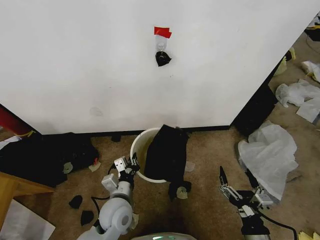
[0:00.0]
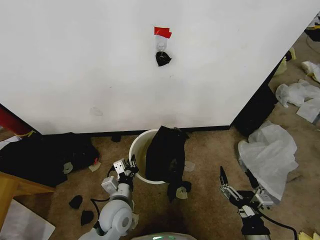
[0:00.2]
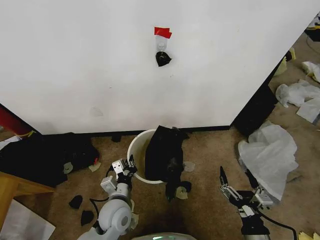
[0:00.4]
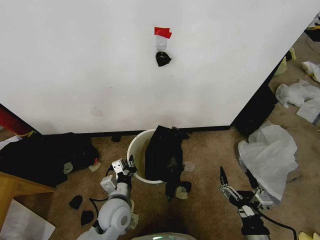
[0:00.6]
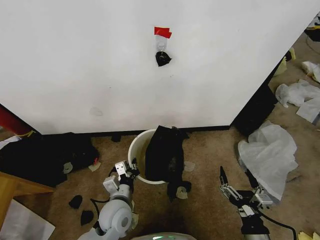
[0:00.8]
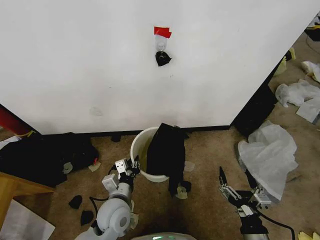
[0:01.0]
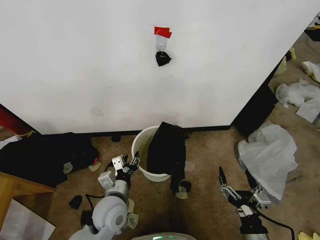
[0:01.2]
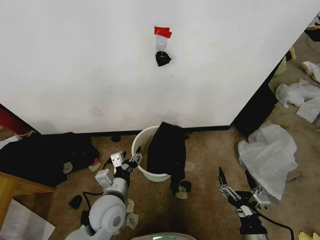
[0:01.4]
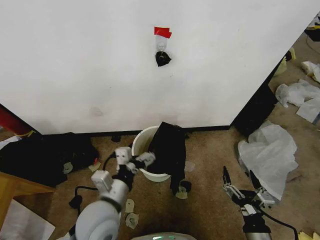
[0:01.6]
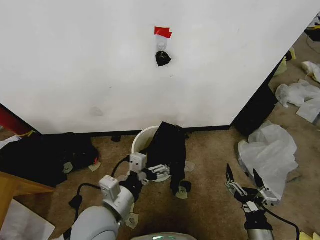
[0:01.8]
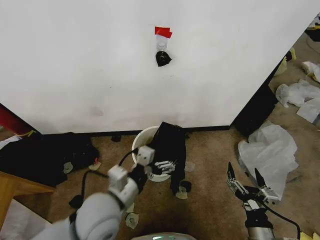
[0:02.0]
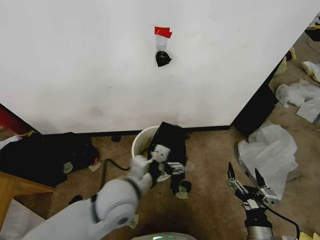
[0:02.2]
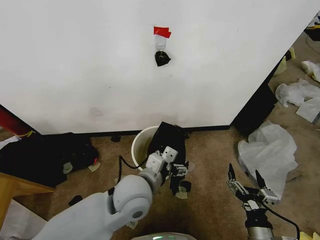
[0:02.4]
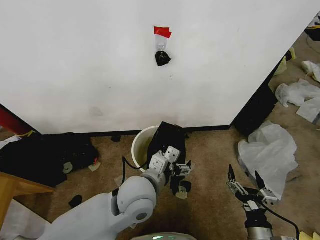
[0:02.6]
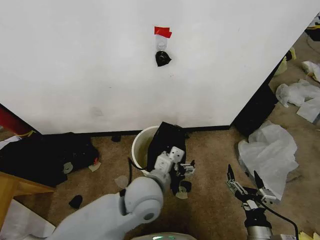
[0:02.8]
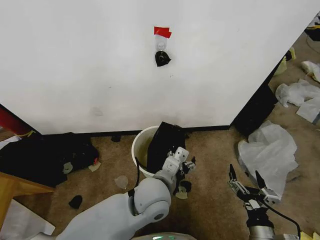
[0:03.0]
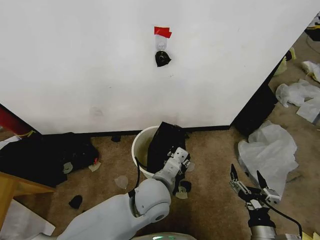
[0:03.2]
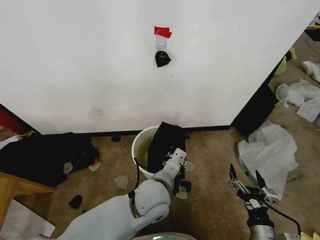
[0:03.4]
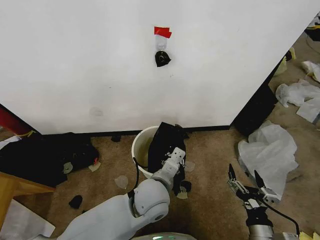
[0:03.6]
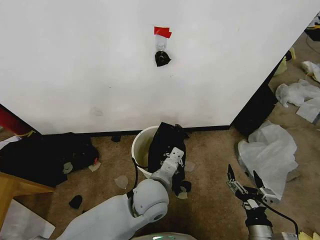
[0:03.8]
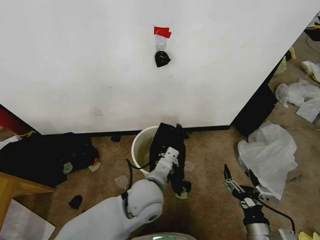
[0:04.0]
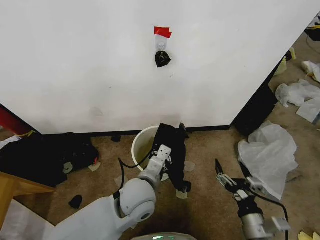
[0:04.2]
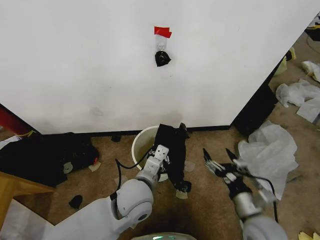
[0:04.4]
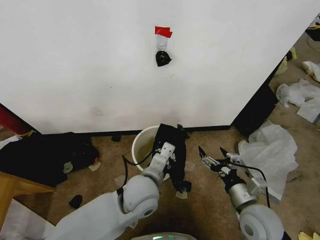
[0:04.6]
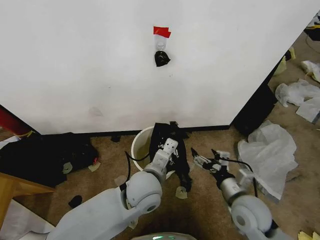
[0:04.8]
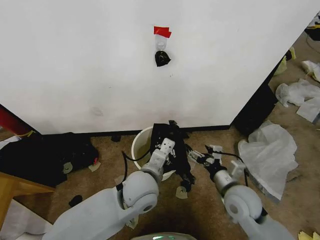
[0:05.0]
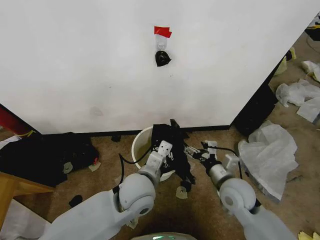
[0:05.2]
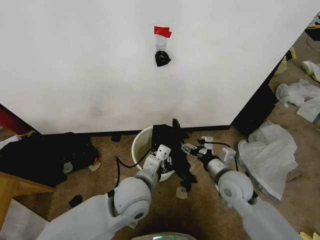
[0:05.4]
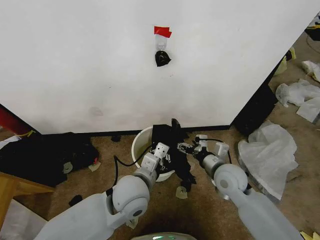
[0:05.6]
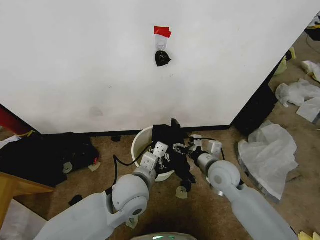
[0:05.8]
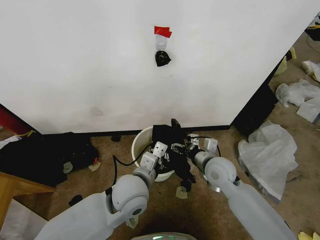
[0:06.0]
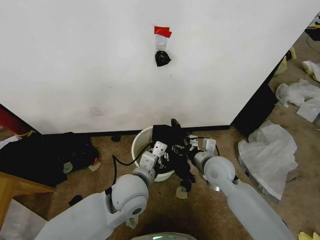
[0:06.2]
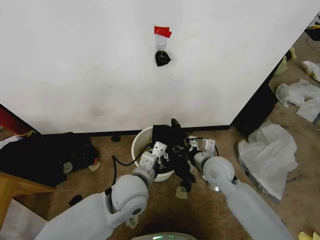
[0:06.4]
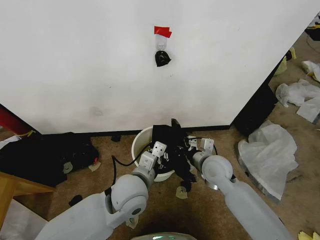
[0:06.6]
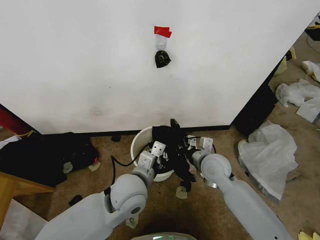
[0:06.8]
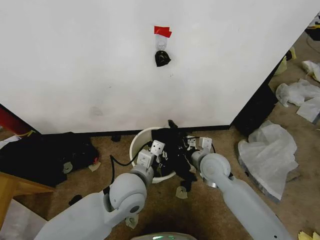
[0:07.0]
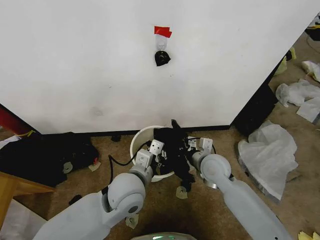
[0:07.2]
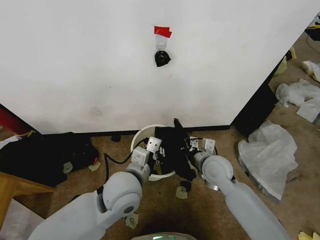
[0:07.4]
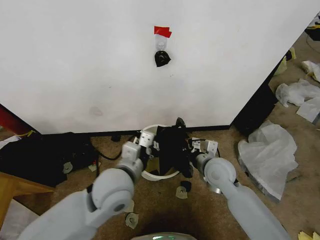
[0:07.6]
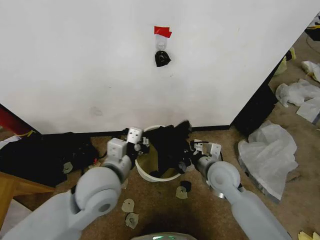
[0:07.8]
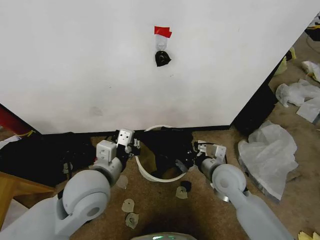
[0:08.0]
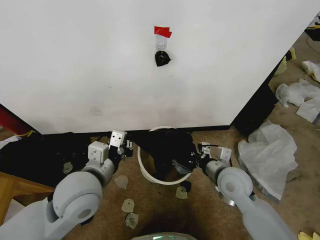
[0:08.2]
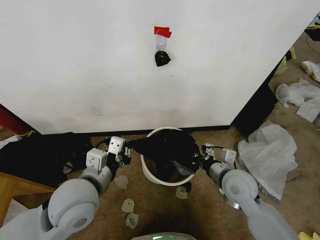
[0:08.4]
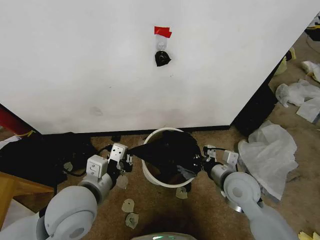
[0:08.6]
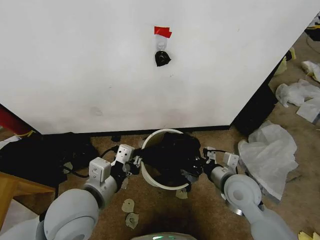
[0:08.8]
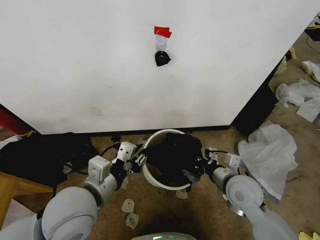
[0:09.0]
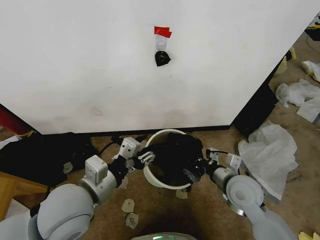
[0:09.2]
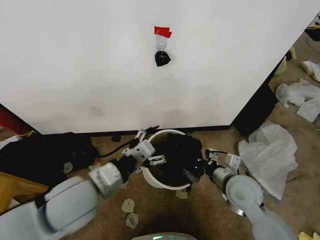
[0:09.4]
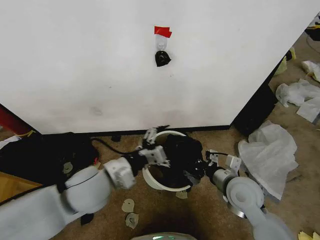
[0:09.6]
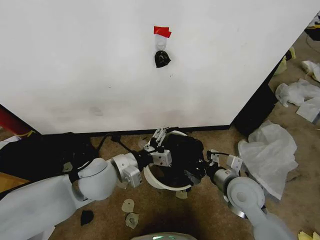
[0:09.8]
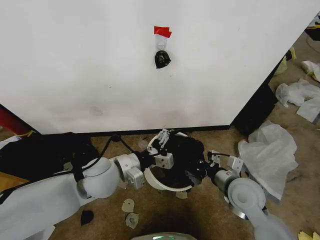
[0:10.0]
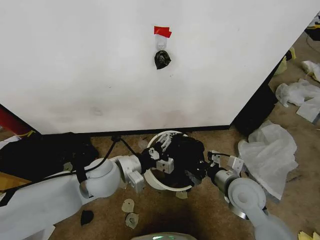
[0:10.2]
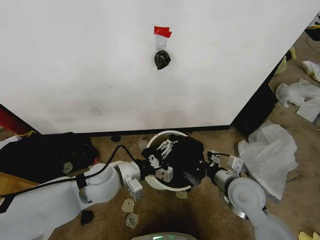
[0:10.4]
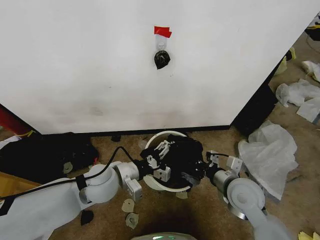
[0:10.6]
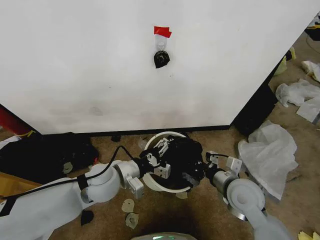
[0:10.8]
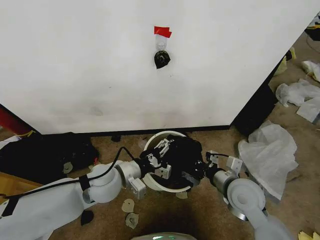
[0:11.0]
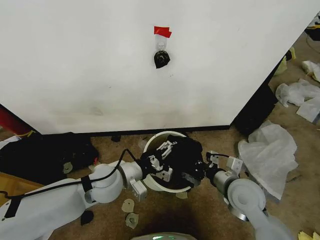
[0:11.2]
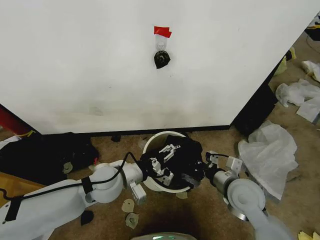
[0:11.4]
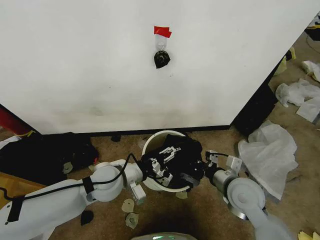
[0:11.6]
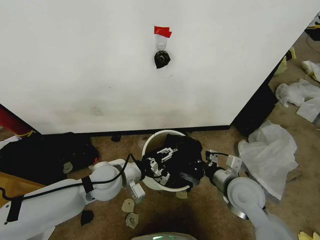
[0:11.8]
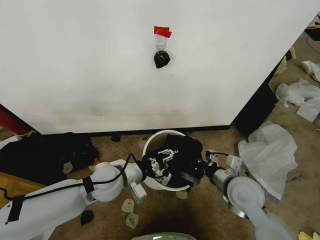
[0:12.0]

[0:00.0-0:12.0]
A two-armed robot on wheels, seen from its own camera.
Task of the whole recording: Place the garbage bag over the trash bin.
0:00.0 to 0:01.6: The left gripper is displaced upward by approximately 10 cm, and opens its fingers.
0:01.6 to 0:03.0: The left gripper travels to the right by some 10 cm.
0:03.0 to 0:04.4: The left gripper closes up. Meanwhile the right gripper moves forward, approximately 5 cm.
0:04.4 to 0:06.0: The right gripper heads forward and to the left, covering approximately 20 cm.
0:06.0 to 0:07.6: The right gripper closes up. The left gripper ends up about 5 cm from where it was.
0:07.6 to 0:09.0: The left gripper is displaced to the left and backward by roughly 10 cm, and opens. Meanwhile the right gripper heads backward and to the right, covering some 10 cm.
0:09.0 to 0:10.4: The left gripper is displaced forward and downward by about 10 cm, and opens.
0:10.4 to 0:12.0: The left gripper closes.

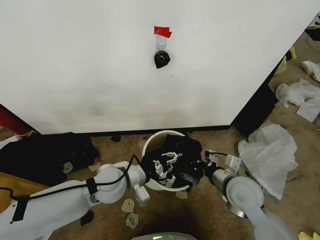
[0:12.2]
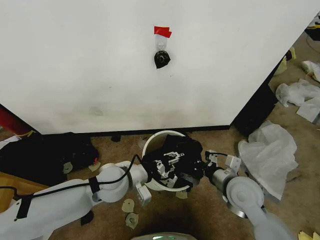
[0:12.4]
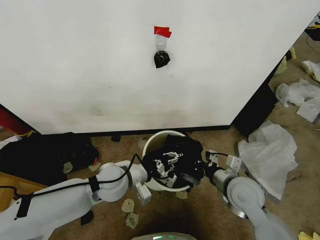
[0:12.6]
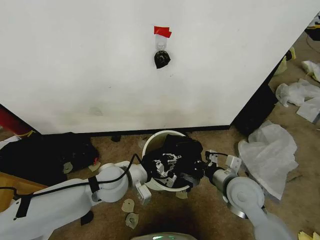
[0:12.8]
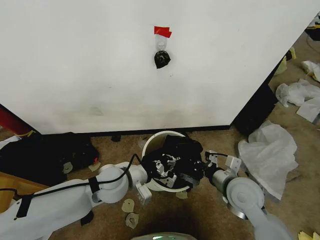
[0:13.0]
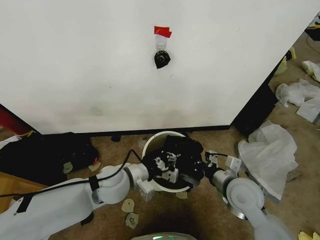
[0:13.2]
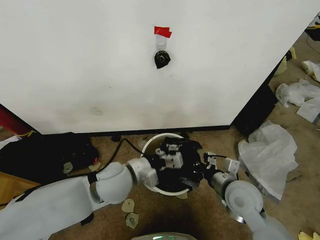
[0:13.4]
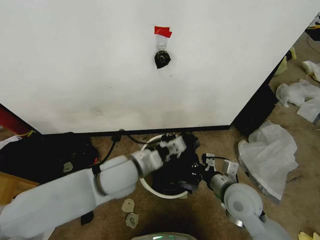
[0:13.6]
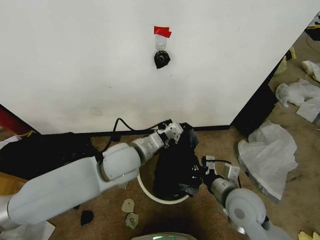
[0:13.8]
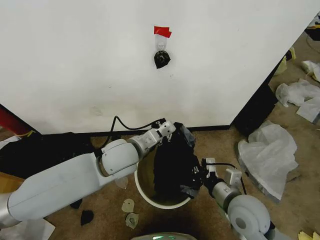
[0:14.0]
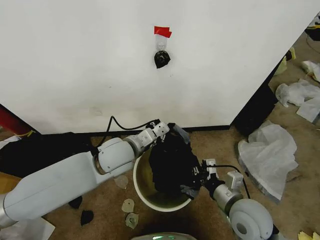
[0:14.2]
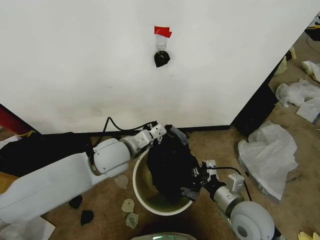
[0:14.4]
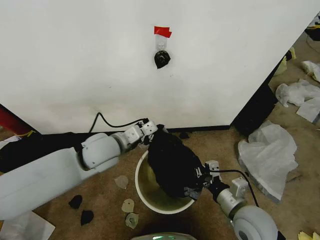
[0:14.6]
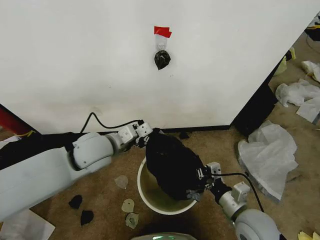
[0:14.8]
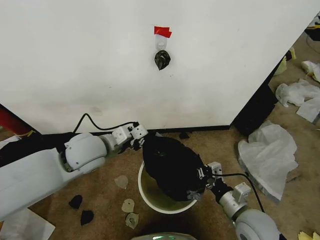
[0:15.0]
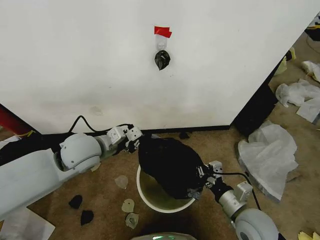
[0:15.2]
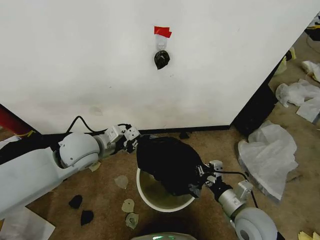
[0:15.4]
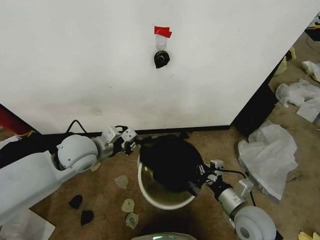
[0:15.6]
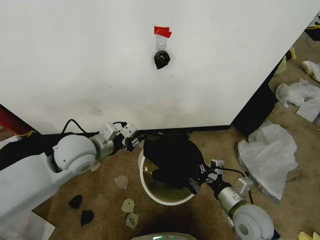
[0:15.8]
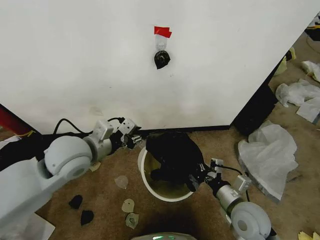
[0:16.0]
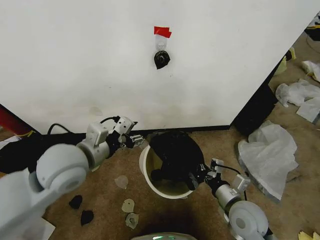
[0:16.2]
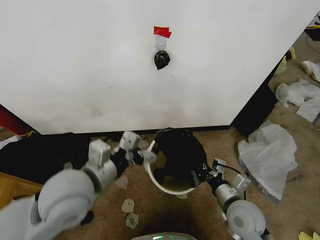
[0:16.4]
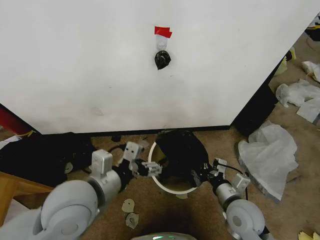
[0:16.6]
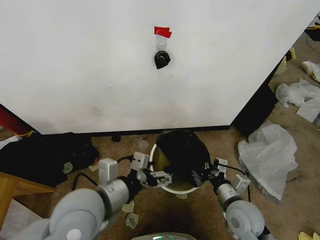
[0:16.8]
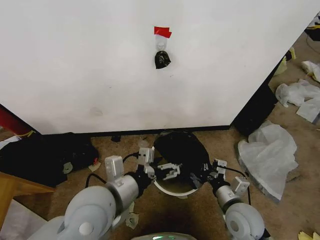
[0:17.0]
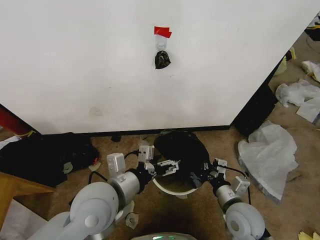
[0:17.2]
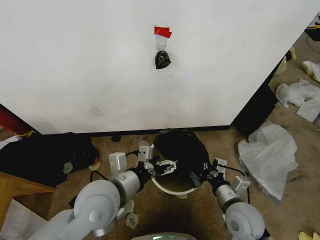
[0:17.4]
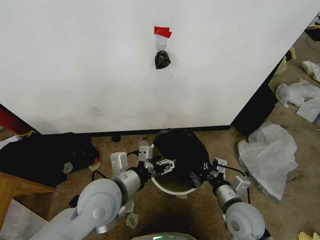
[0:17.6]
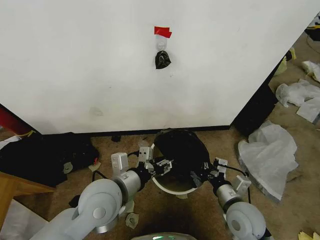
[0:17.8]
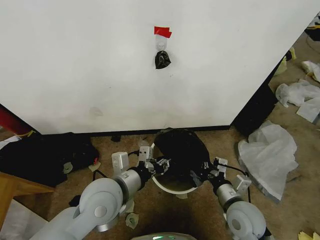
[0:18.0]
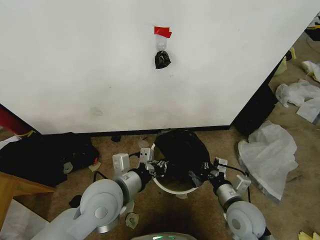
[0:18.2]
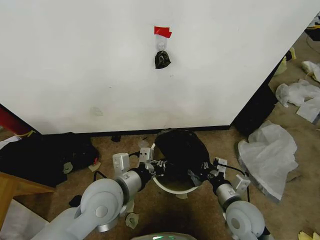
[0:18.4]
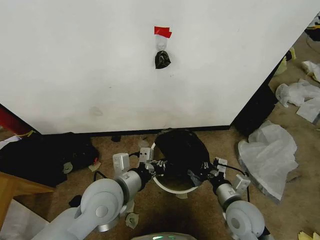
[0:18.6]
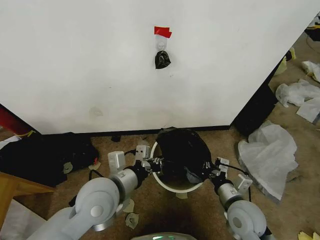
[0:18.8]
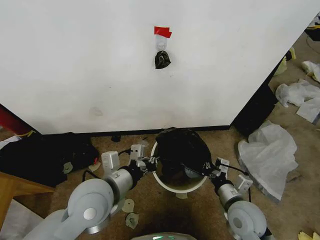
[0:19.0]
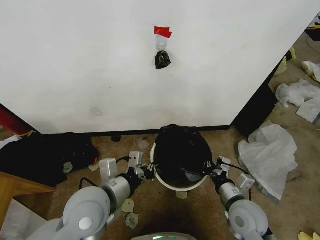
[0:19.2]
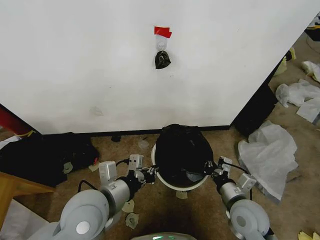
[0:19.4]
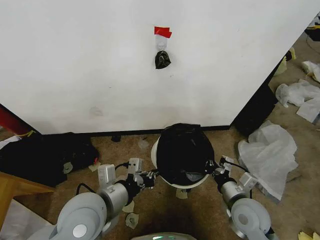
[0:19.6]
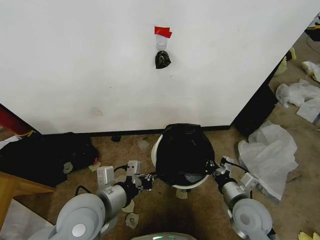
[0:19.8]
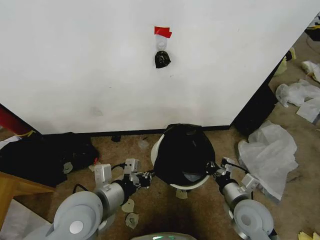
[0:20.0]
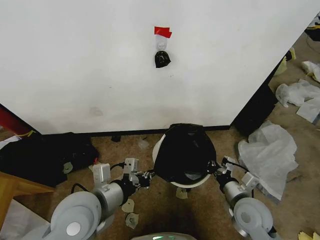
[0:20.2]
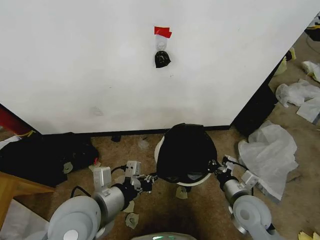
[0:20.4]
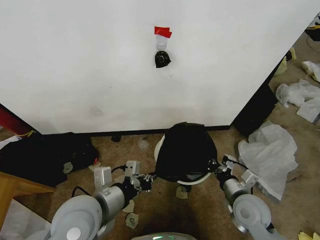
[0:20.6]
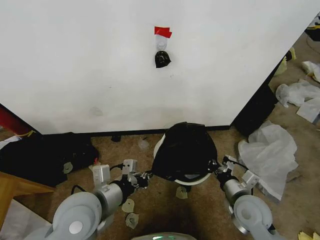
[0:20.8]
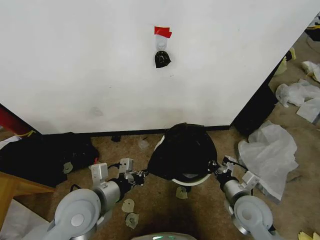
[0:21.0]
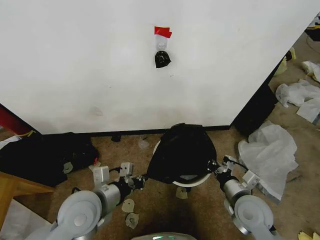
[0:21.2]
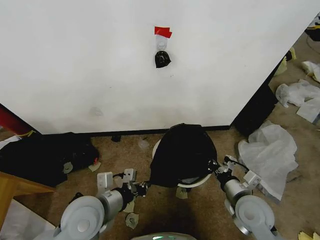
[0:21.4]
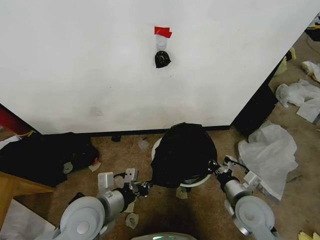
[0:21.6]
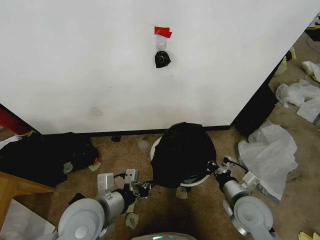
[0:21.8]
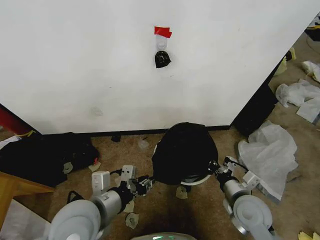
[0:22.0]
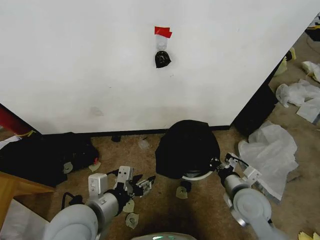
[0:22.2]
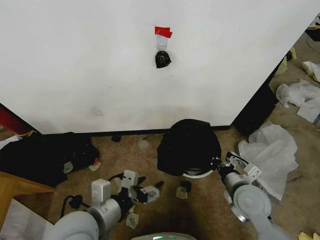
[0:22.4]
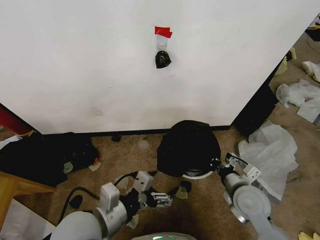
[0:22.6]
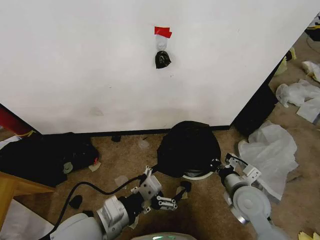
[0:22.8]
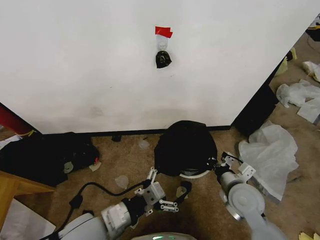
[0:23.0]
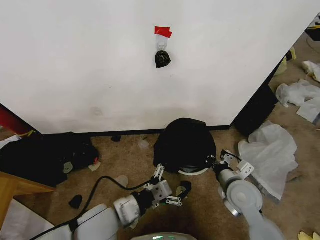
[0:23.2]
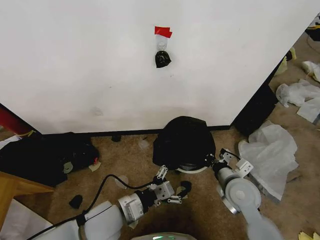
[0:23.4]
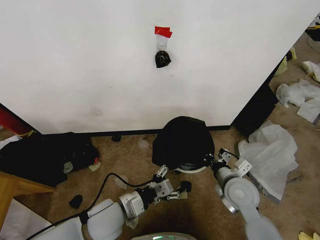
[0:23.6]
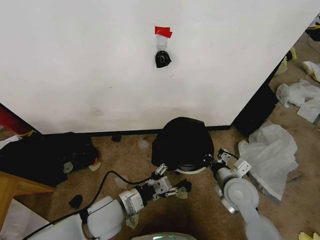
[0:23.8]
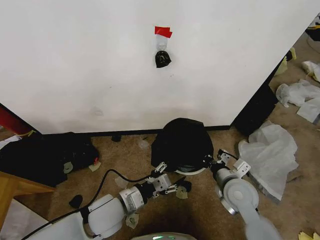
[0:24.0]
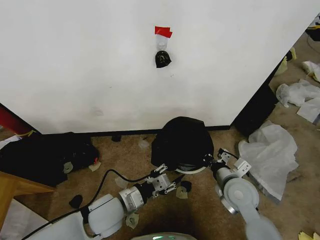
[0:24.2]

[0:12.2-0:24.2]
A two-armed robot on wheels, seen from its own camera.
Task of the whole recording: Place the garbage bag over the trash bin.
0:12.2 to 0:13.8: The left gripper is displaced upward by about 10 cm, and closes.
0:13.8 to 0:15.2: The left gripper is displaced to the left by roughly 10 cm, while the right gripper shifts by roughly 5 cm.
0:15.2 to 0:16.6: The left gripper is displaced backward by approximately 15 cm, and opens its fingers.
0:16.6 to 0:18.2: The left gripper is displaced downward by about 5 cm, and closes.
0:18.2 to 0:19.8: The grippers move only a little.
0:19.8 to 0:21.2: The grippers make only small movements.
0:21.2 to 0:22.6: The left gripper heads backward, covering approximately 5 cm, and opens.
0:22.6 to 0:24.2: The left gripper goes roughly 10 cm downward and forward, and closes.
